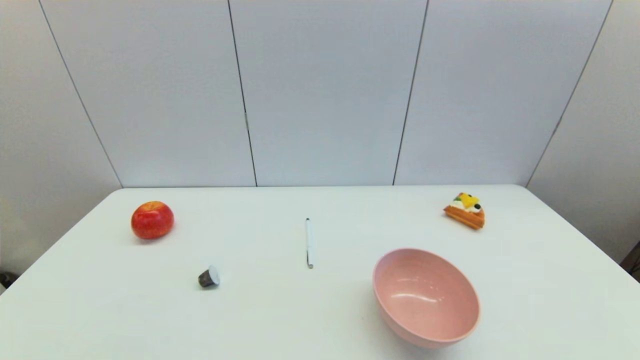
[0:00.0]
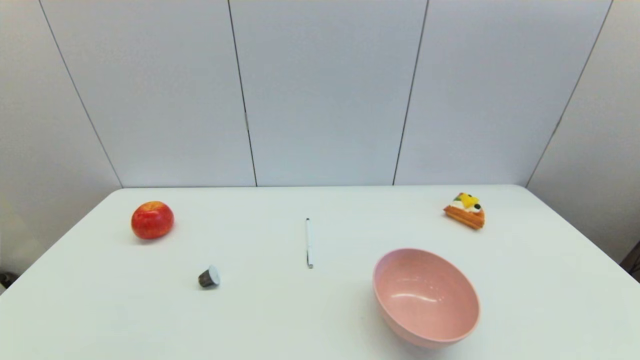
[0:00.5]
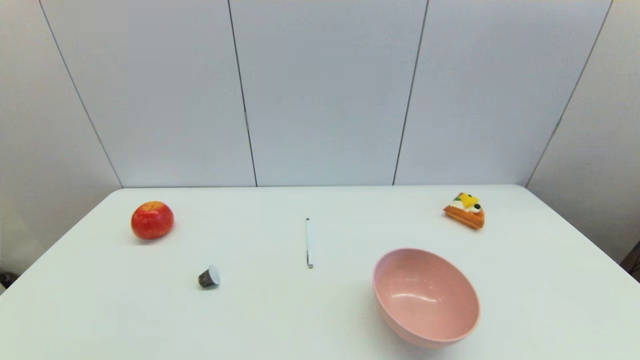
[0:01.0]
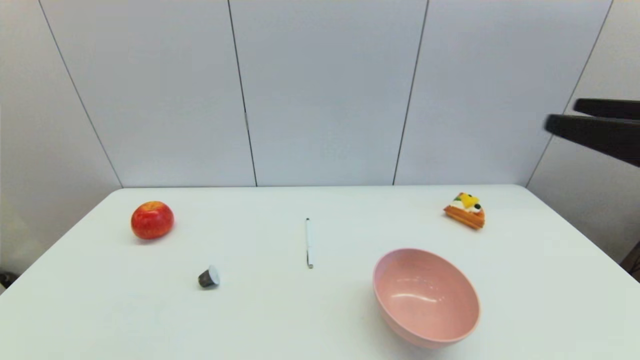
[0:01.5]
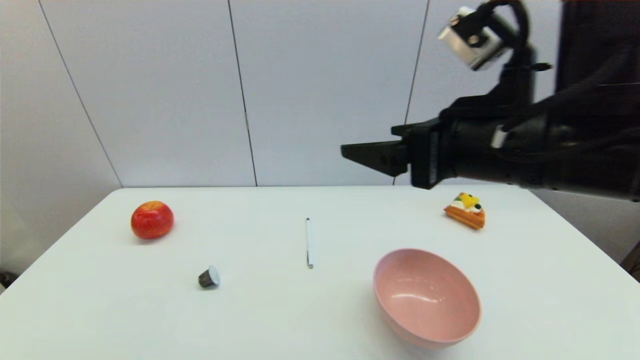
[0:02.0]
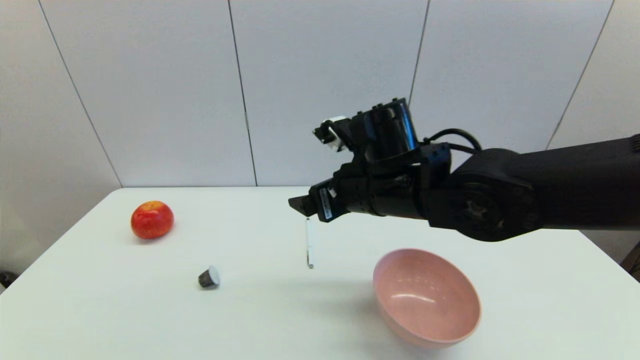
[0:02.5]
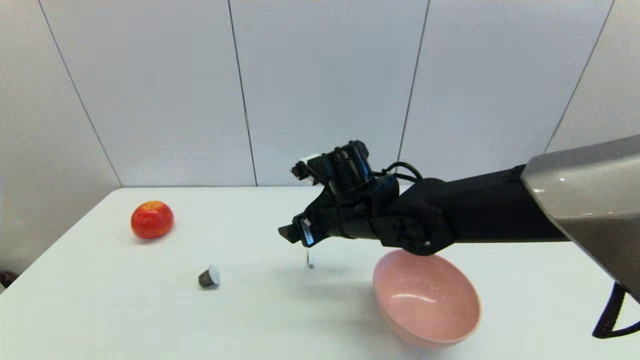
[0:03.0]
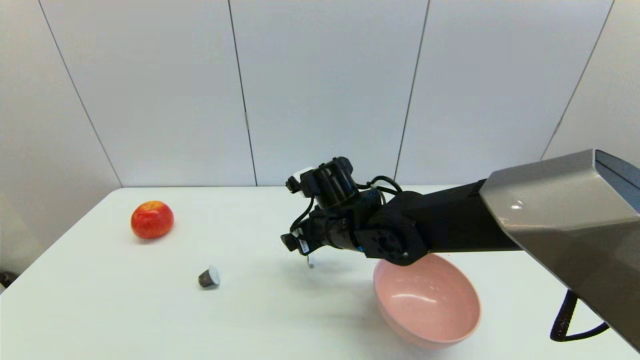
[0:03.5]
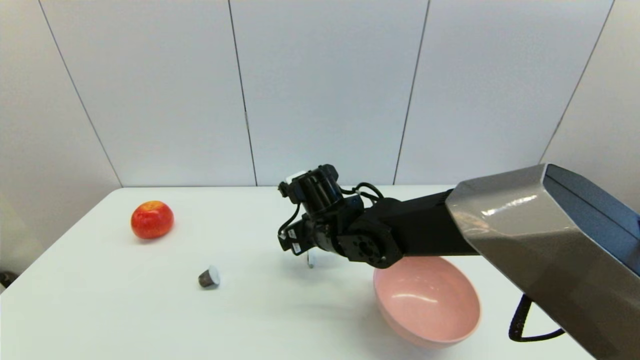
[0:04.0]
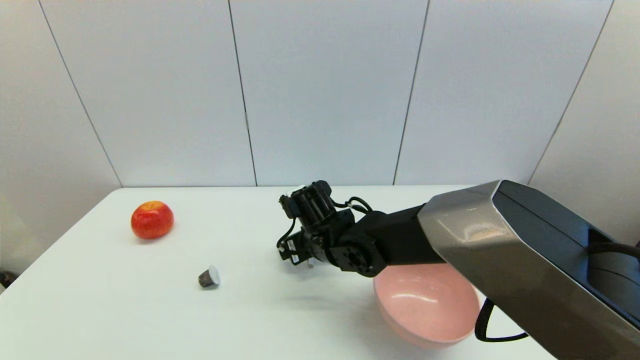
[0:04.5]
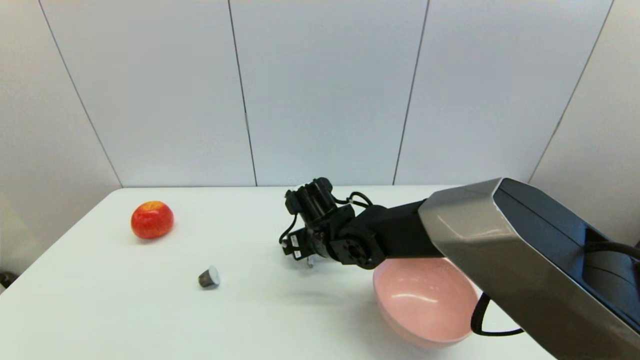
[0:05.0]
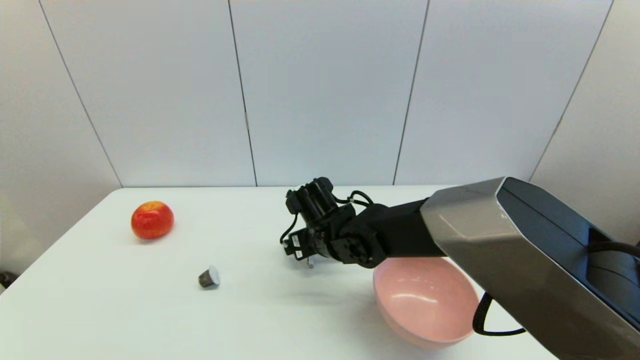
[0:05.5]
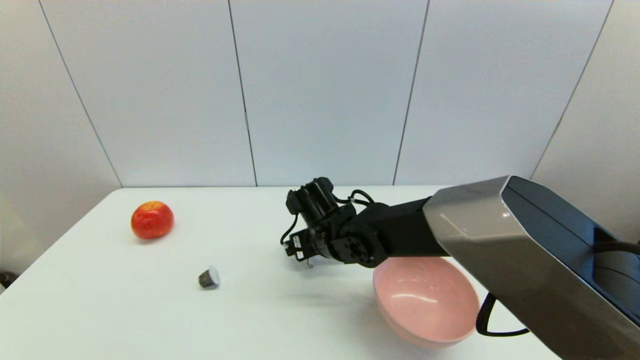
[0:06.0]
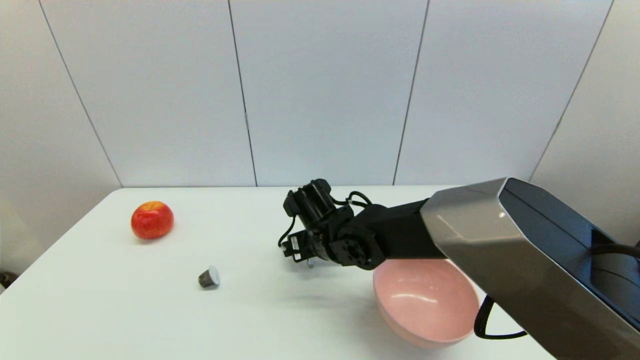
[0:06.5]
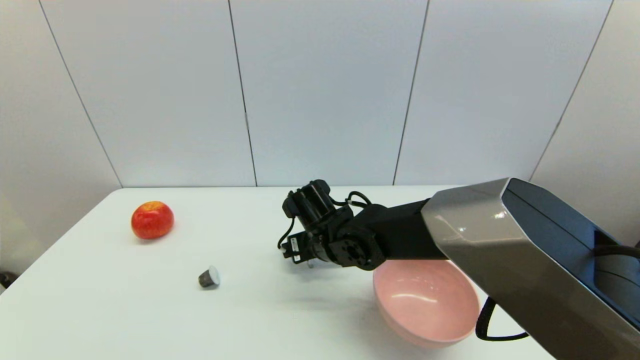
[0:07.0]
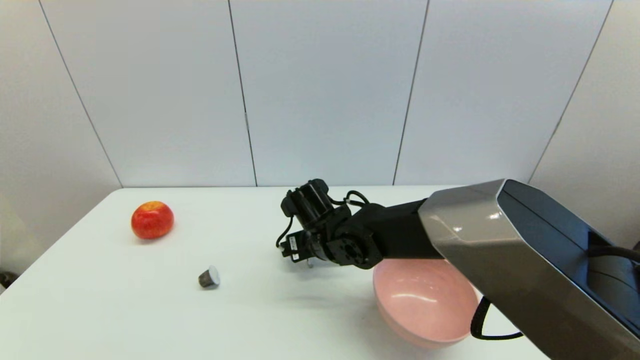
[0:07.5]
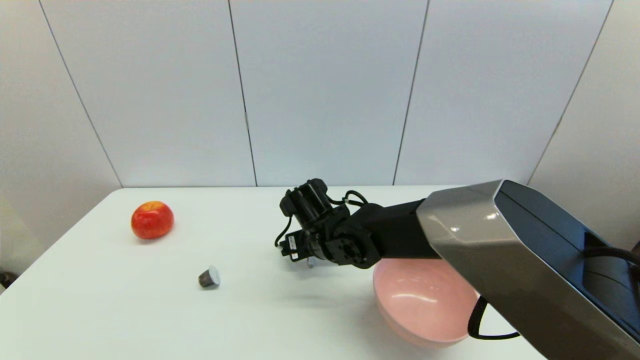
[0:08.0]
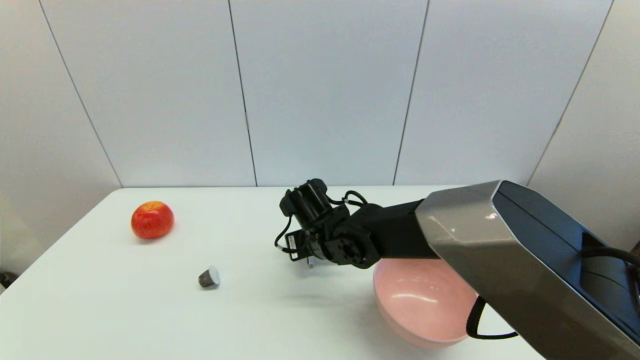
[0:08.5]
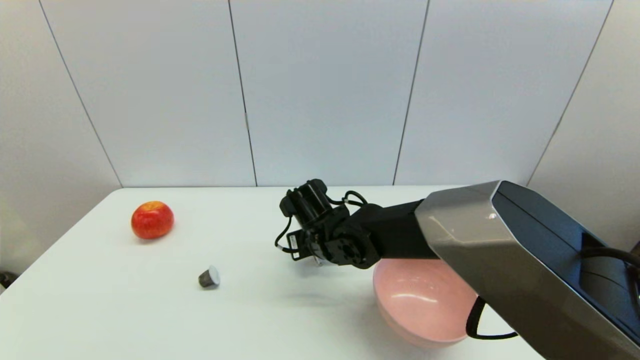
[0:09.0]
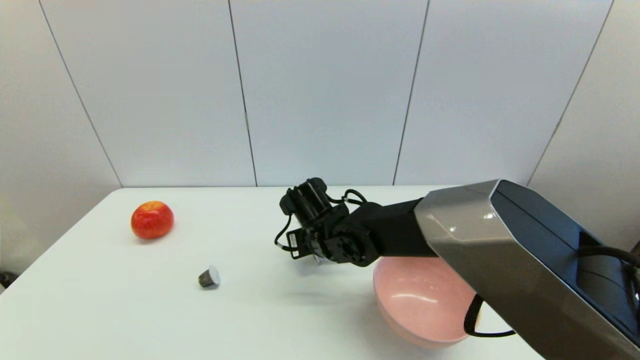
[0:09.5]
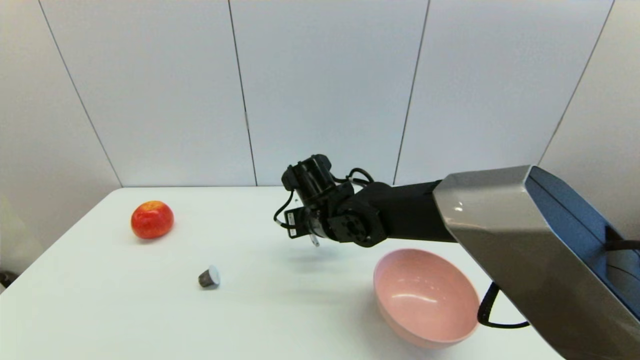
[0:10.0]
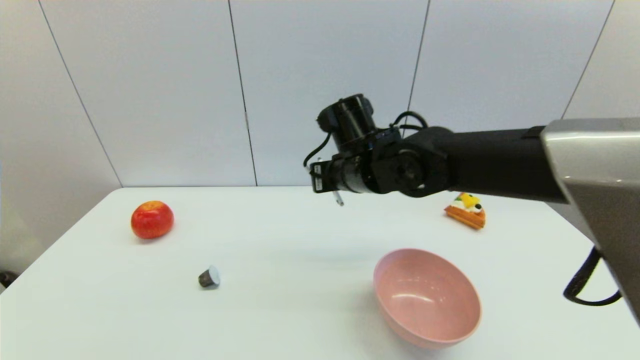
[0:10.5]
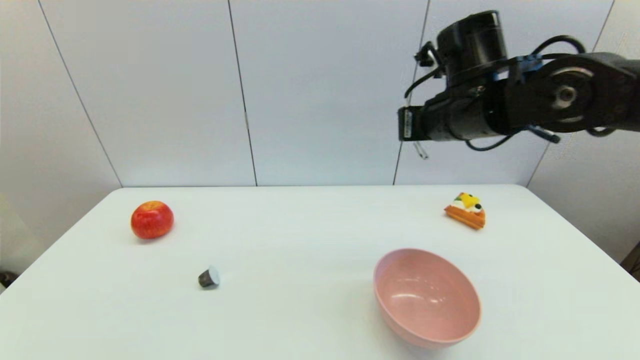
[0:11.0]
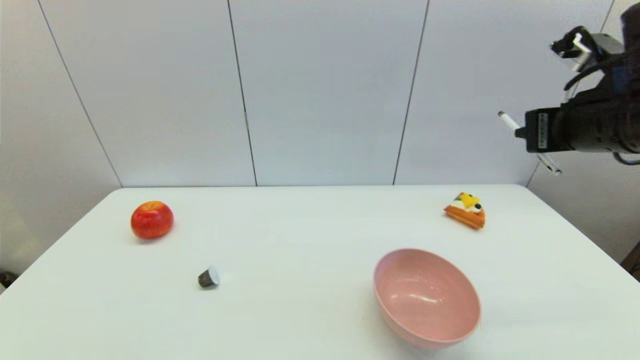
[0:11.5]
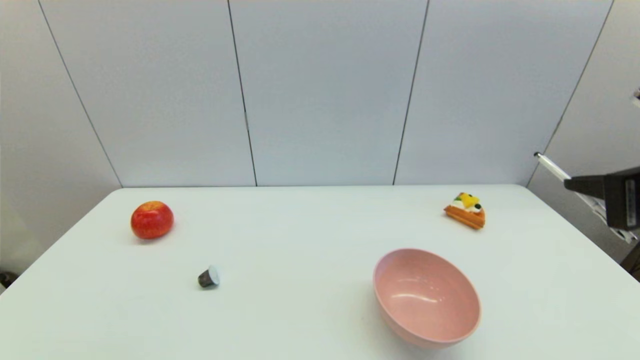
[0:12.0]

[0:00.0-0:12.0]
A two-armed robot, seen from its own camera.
Task of the whole recording: put the pen in the designated position.
Step, 0:01.5 to 0:09.0: Grasp the sign pen with right gripper.
0:00.0 to 0:02.0: The right gripper moves forward, upward and to the left, roughly 40 cm.
0:02.0 to 0:04.0: The right gripper travels downward, to the left and forward by about 25 cm.
0:04.0 to 0:06.0: There are only small adjustments of the grippers.
0:06.0 to 0:08.0: Both grippers stay put.
0:08.0 to 0:10.0: The right gripper travels upward by roughly 5 cm, and closes up.
0:10.0 to 0:12.0: The right gripper shifts approximately 40 cm to the right, backward and upward.

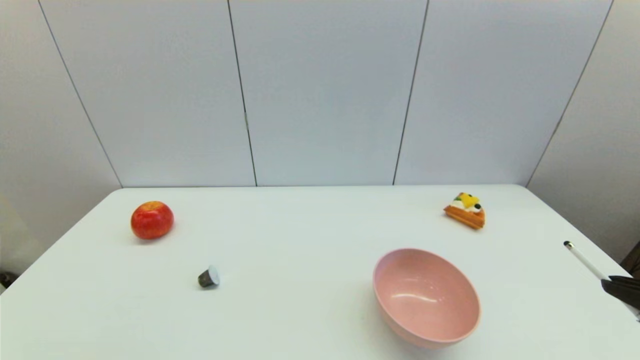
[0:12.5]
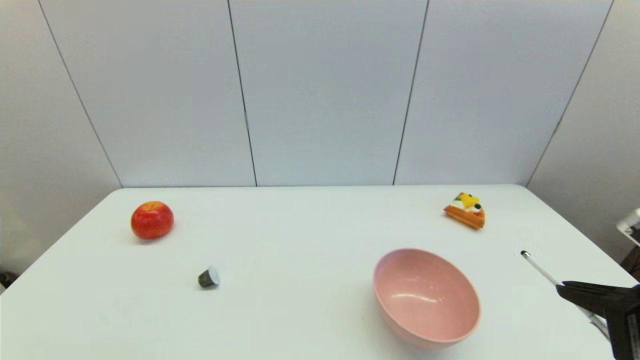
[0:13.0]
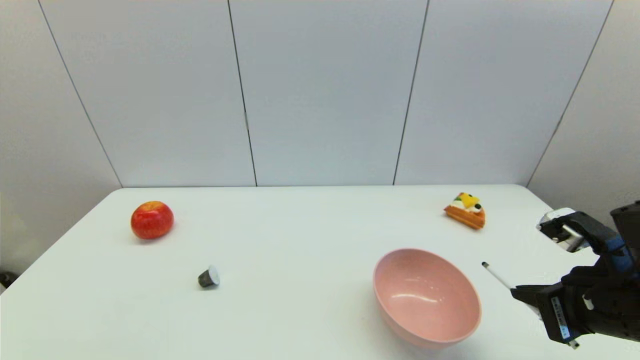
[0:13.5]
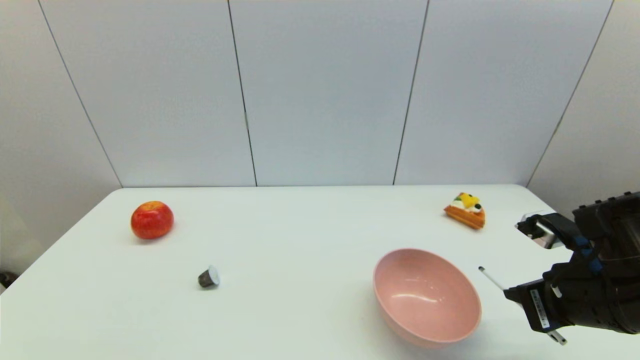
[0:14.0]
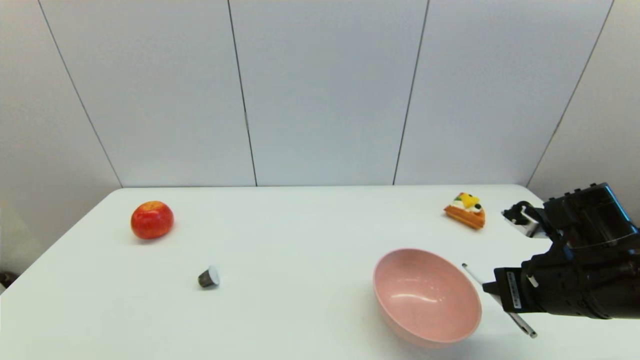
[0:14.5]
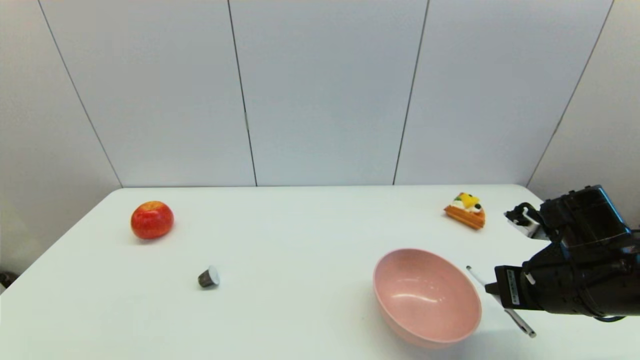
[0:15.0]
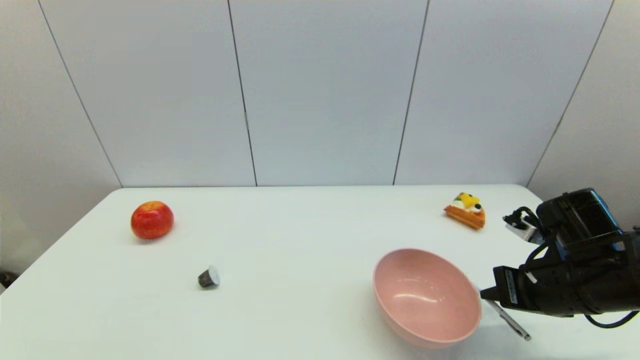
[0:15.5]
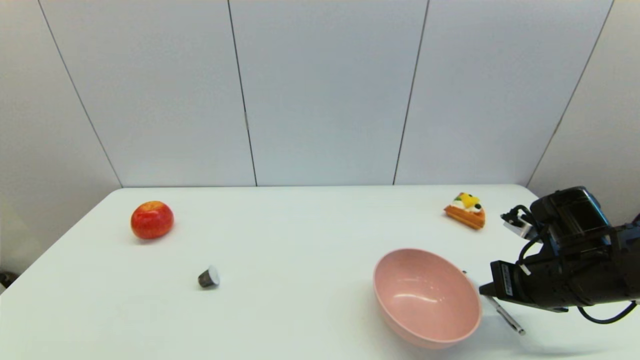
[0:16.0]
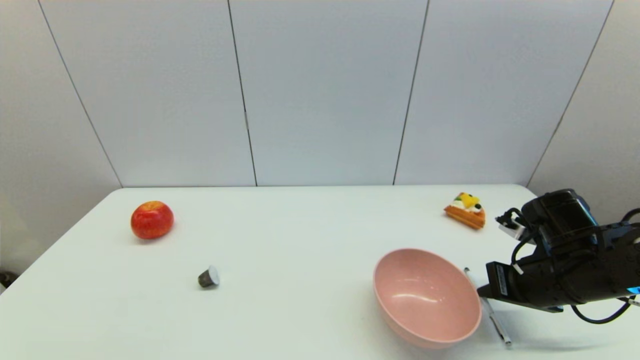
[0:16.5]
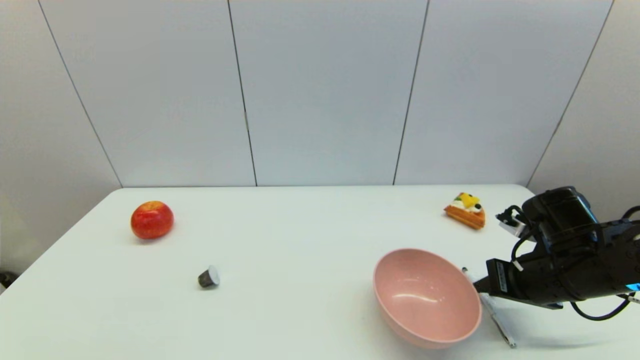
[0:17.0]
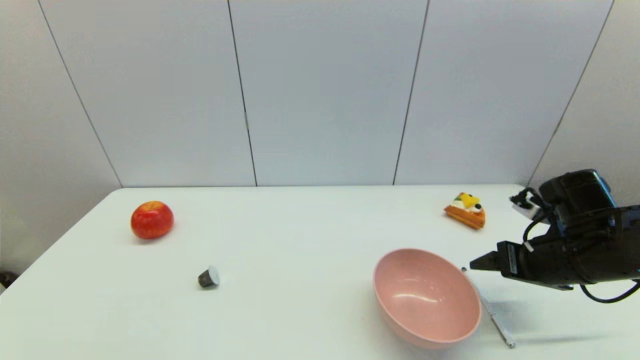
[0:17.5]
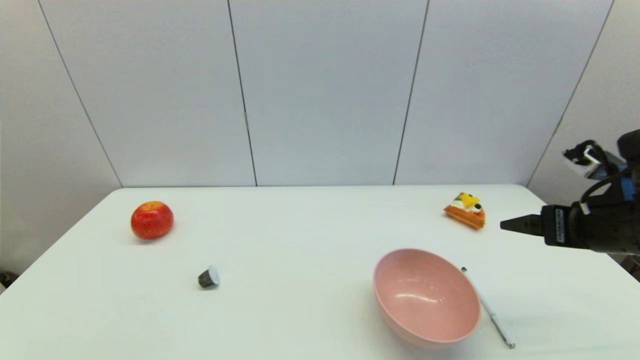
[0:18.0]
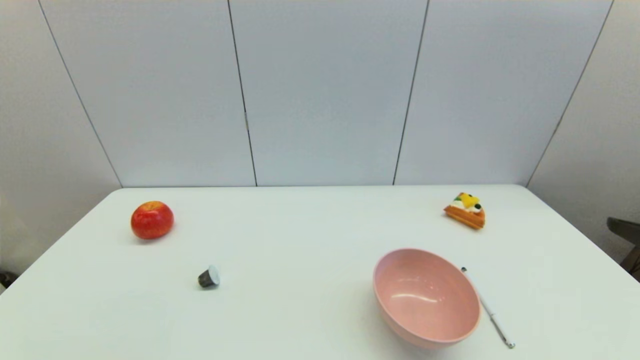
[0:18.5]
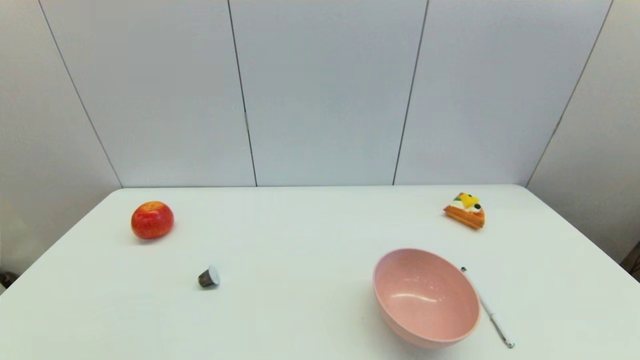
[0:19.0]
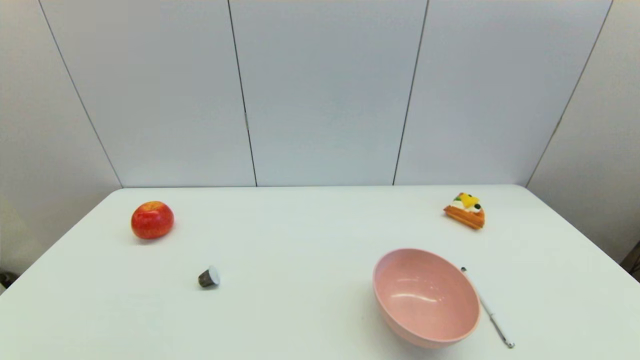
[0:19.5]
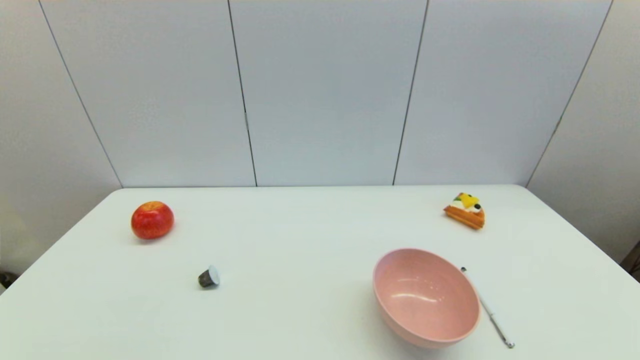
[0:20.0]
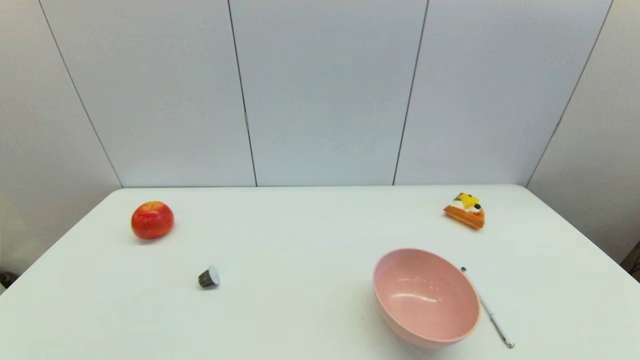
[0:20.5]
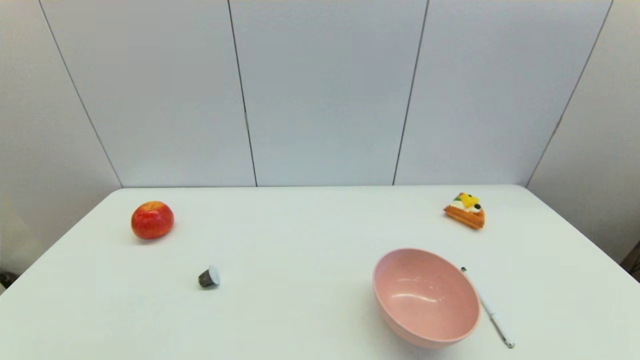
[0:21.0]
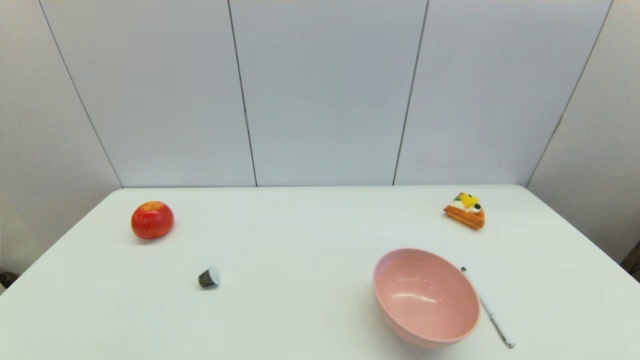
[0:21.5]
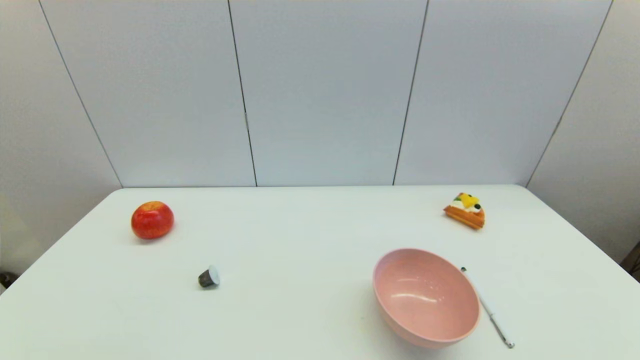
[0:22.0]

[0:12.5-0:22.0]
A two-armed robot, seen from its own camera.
Task of the whole recording: put the pen in the designated position.
Step, 0:12.5 to 0:17.0: Place the sign pen on the table with right gripper.
0:12.5 to 0:14.5: The right gripper shifts about 15 cm forward and downward.
0:14.5 to 0:16.5: The right gripper moves about 5 cm.
0:16.5 to 0:18.0: The right gripper is displaced upward by roughly 10 cm, and opens up.
0:18.0 to 0:20.0: The right gripper is displaced backward and downward by approximately 25 cm.
